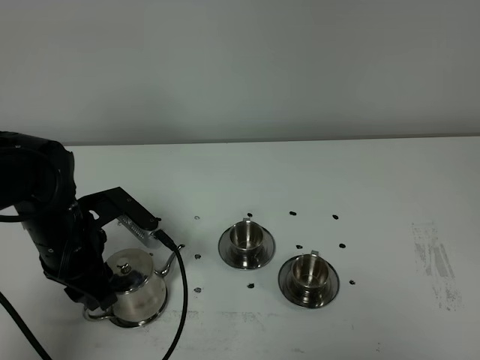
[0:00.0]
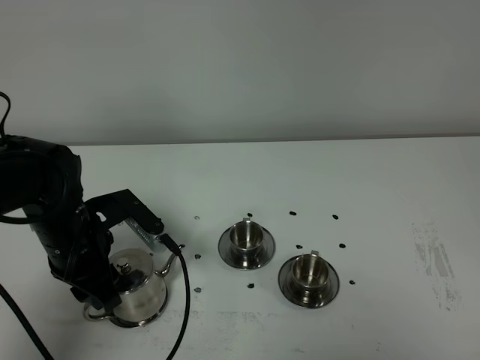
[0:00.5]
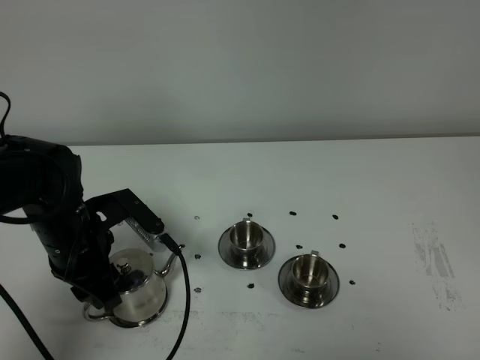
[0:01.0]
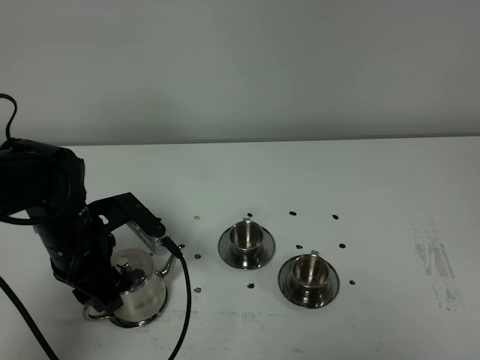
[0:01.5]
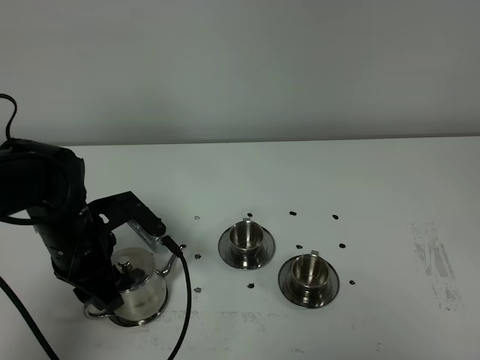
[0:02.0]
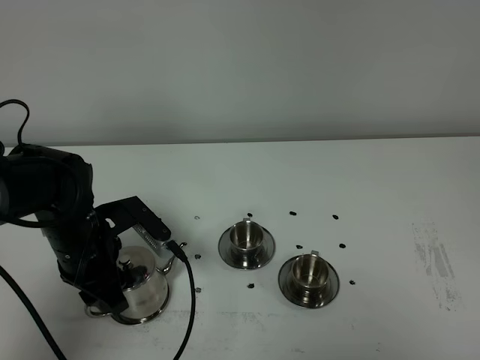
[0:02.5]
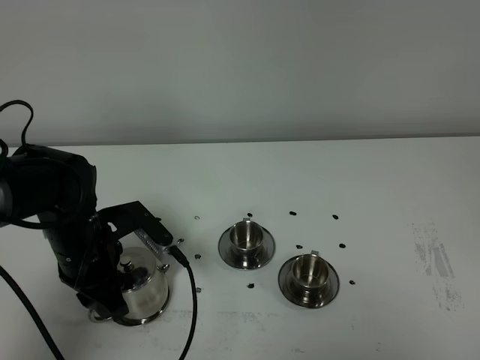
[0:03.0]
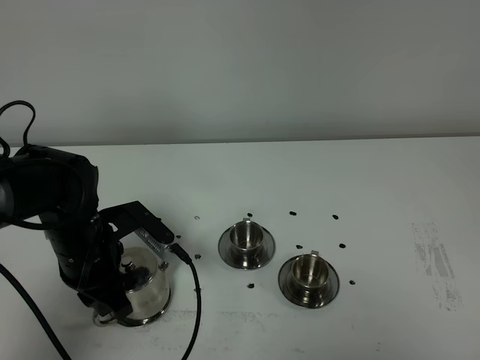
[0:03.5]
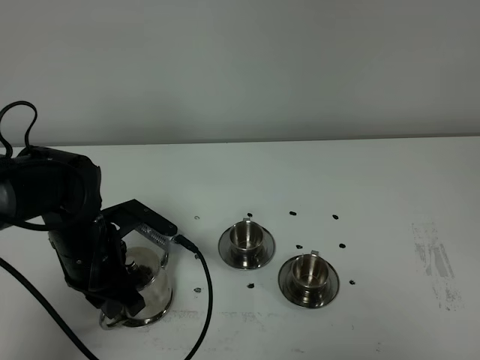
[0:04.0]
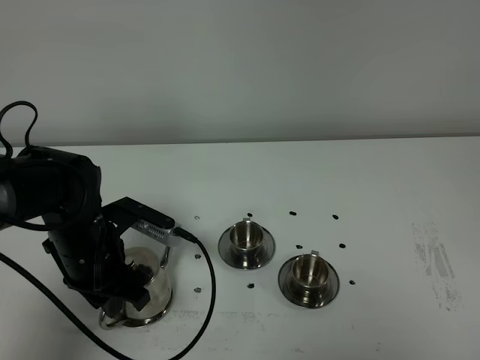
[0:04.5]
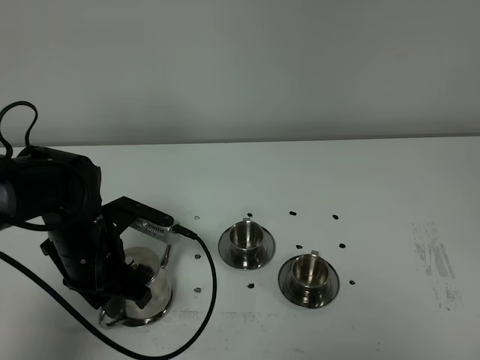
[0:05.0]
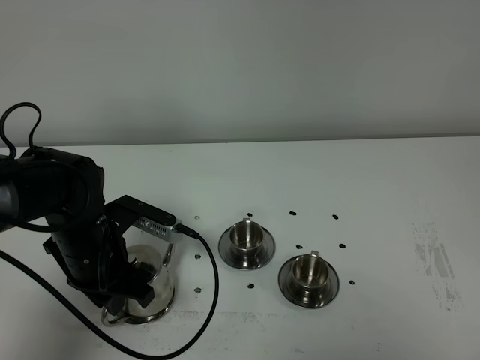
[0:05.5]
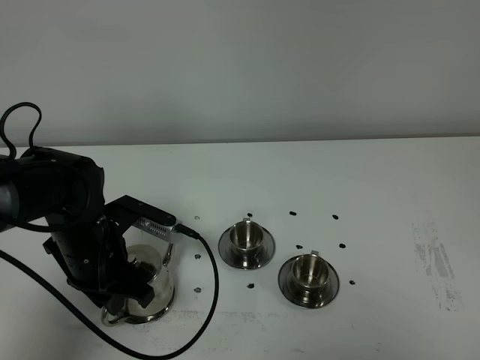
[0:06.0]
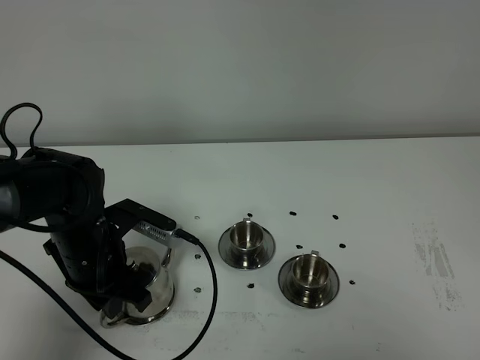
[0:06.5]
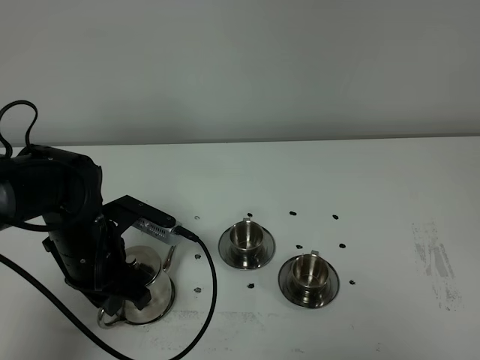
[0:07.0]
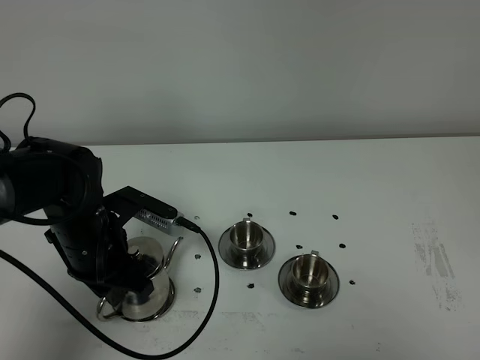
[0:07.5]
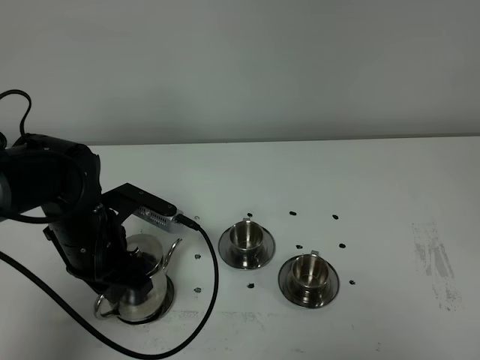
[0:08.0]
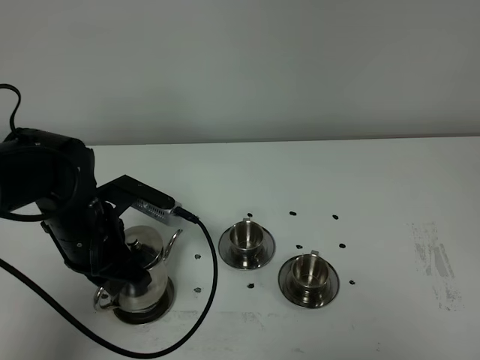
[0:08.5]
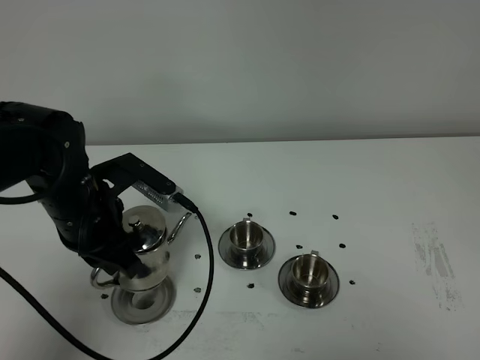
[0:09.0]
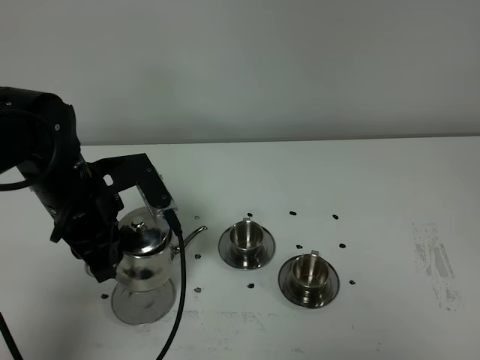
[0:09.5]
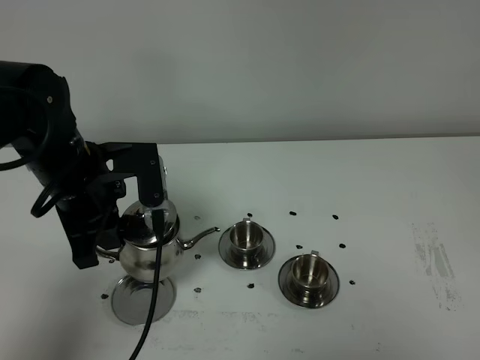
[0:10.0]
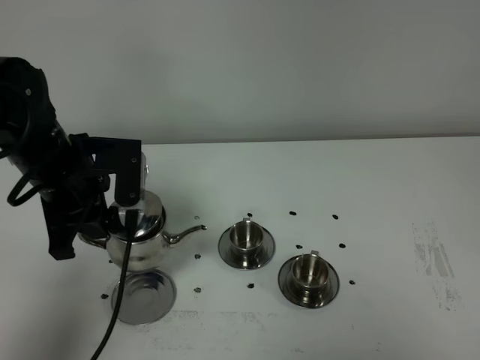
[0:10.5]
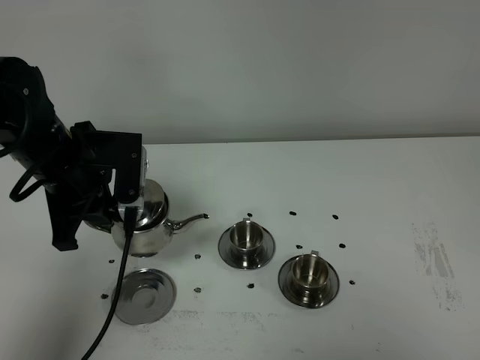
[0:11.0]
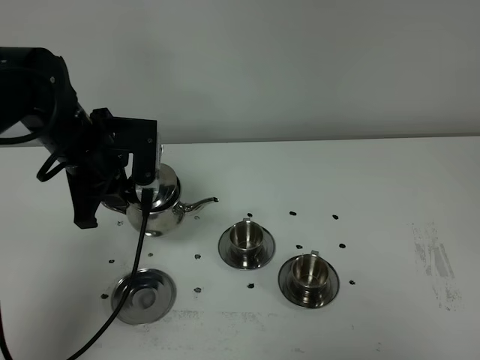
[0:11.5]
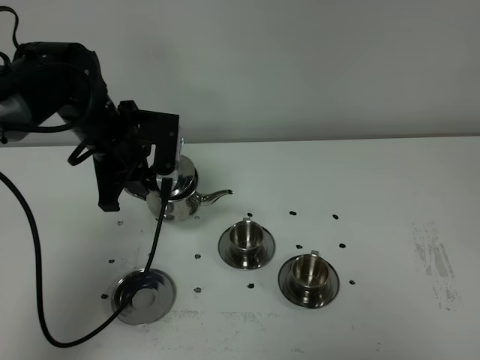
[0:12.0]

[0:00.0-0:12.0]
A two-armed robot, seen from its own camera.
Task of the whole recording: grasp the stainless steel teapot and pour the tea into the two stainless steel teacups one by one, put the stainless steel teapot back in its original place.
Step, 0.0 to 9.0 s: Pick up the teapot with the left gripper.
0.0 to 2.0 s: The grippers move only a little.
2.0 to 4.0 s: The left gripper closes.
4.0 to 8.0 s: The grippers stay close to where they were, moving slightly.
8.0 to 10.0 s: The left gripper travels upward by some 10 cm.
10.0 to 12.0 s: The left gripper goes some 10 cm forward.

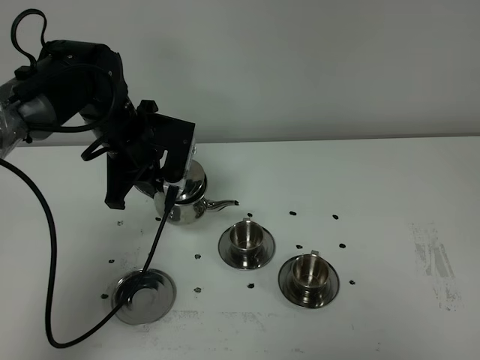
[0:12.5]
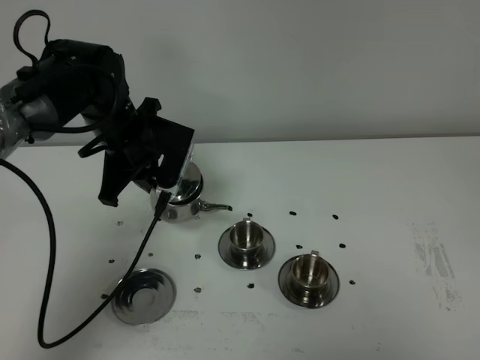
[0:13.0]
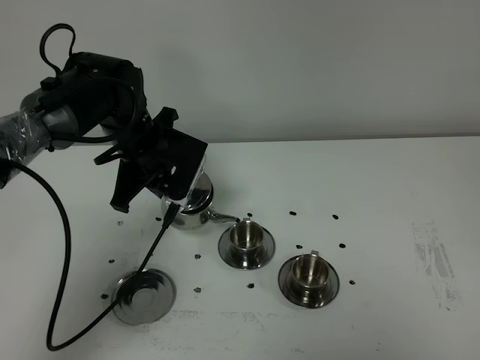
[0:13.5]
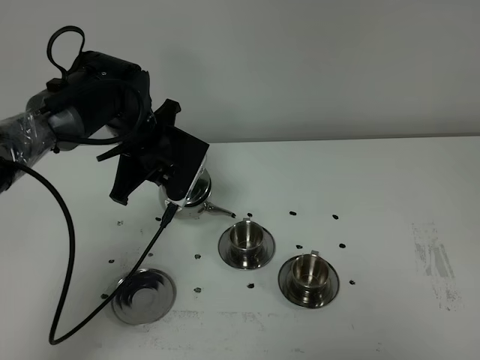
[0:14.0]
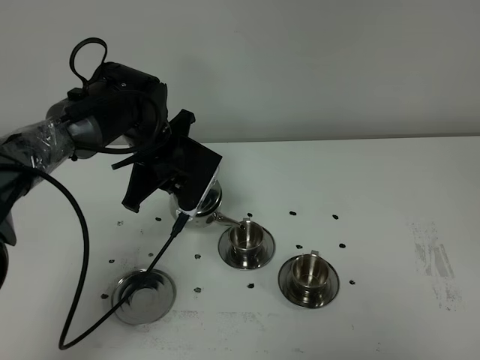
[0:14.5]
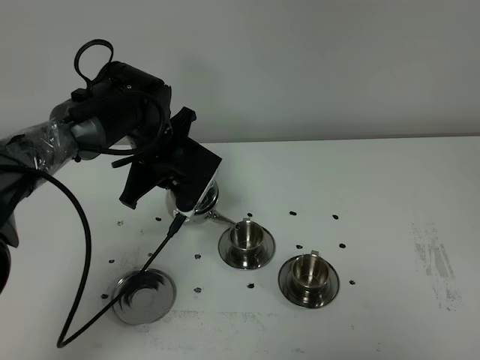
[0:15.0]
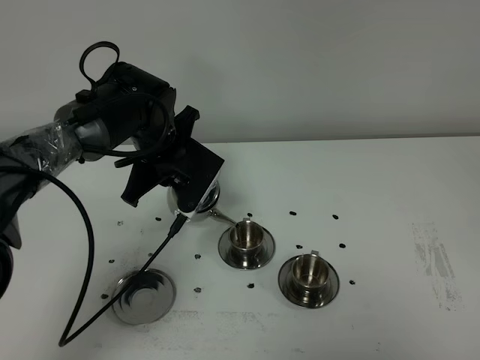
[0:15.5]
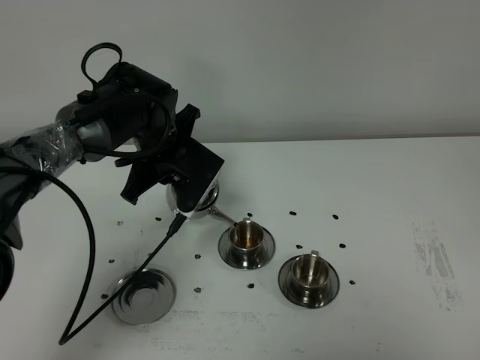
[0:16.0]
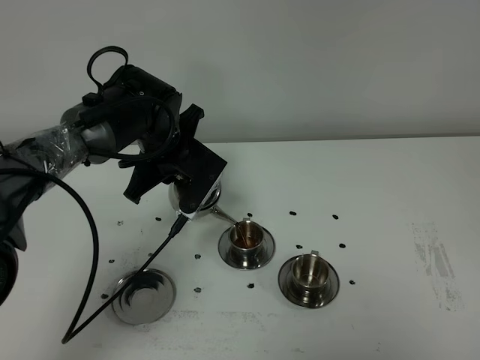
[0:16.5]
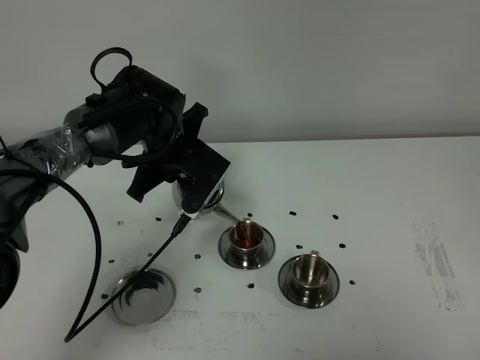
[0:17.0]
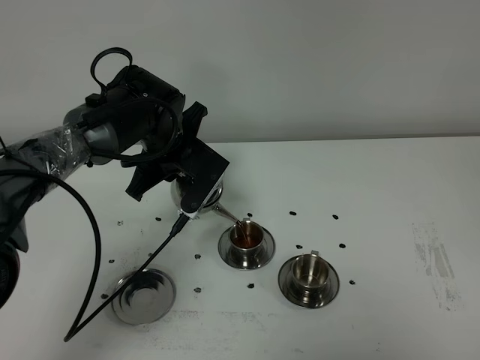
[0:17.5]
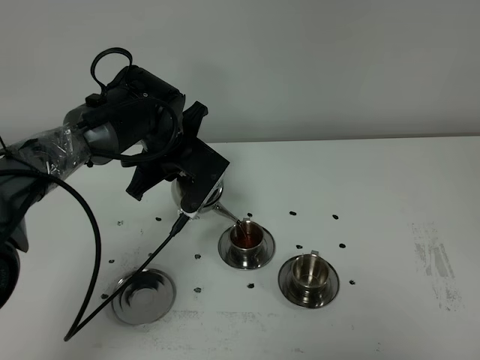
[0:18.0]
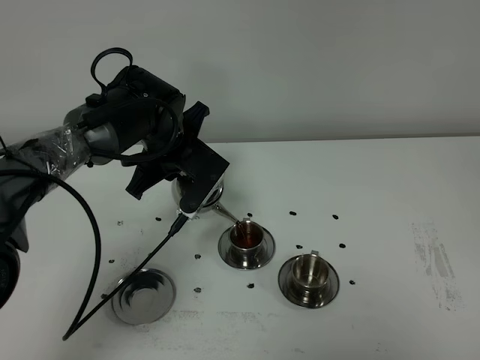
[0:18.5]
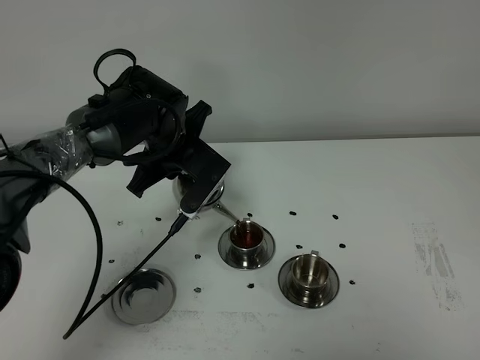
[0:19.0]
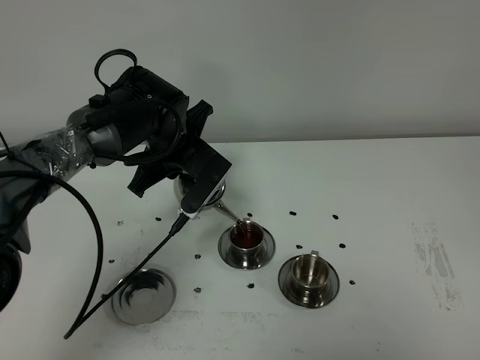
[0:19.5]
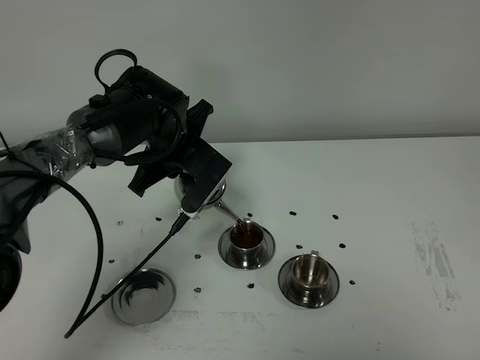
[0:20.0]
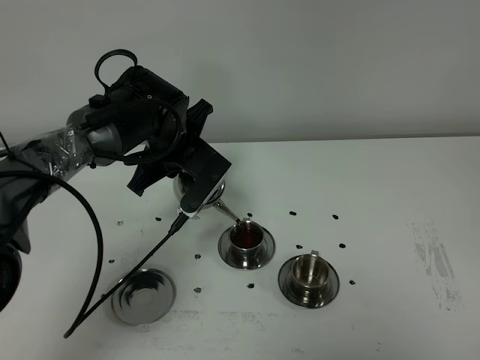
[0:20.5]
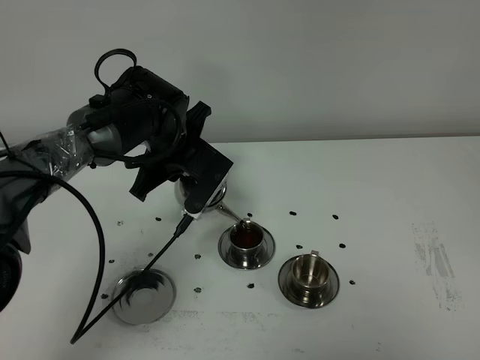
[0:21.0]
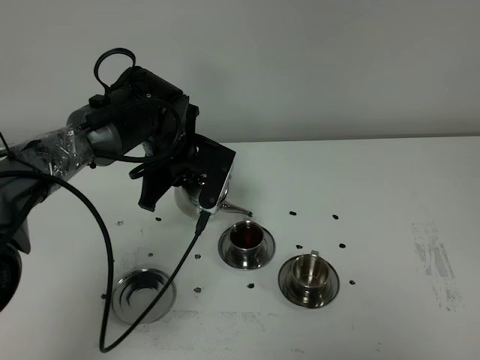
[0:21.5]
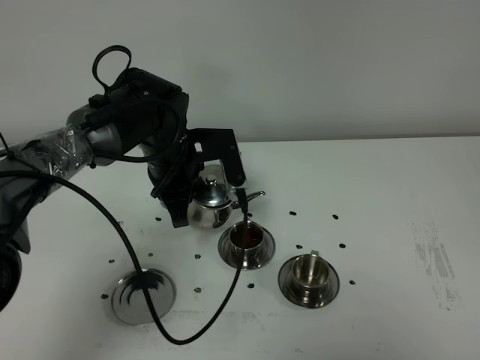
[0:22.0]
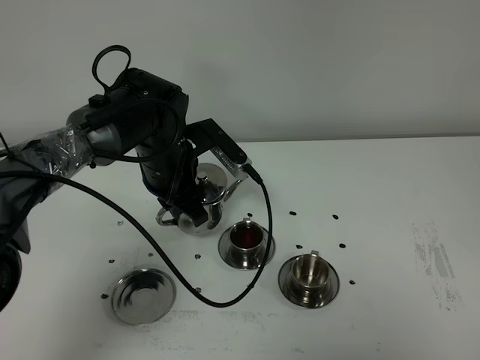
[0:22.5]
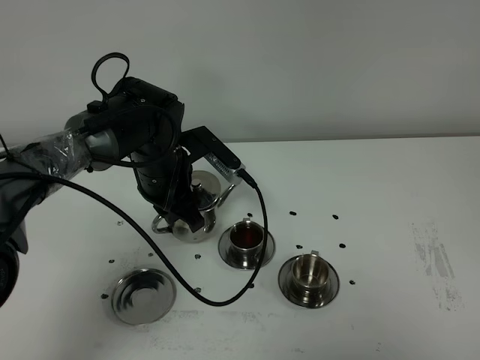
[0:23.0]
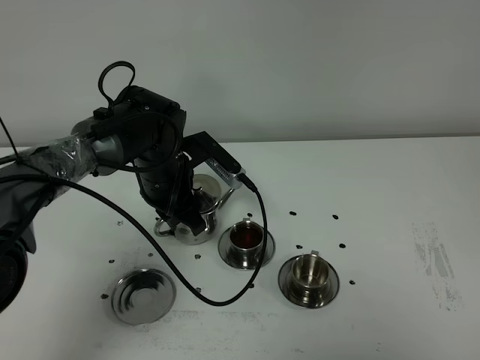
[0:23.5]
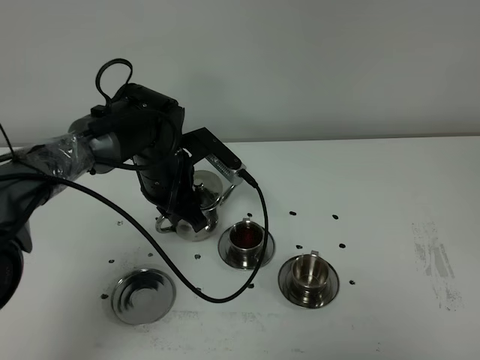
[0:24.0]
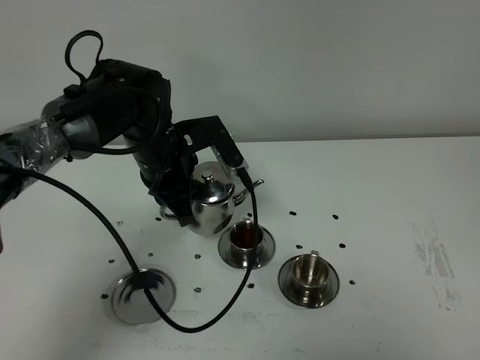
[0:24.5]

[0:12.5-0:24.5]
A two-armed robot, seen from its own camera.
Task of the whole recording: grasp the stainless steel teapot and pour the tea into the two stainless steel teacups one by one, put the stainless steel teapot back in its original place.
Step, 12.5 to 21.5 s: Pour tea into the teacup with the left gripper.
12.5 to 14.5 s: The grippers move only a little.
14.5 to 16.5 s: There are only small adjustments of the grippers.
16.5 to 18.5 s: Both grippers stay about where they are.
18.5 to 20.5 s: Both grippers stay put.
22.5 to 24.5 s: There are only small adjustments of the grippers.

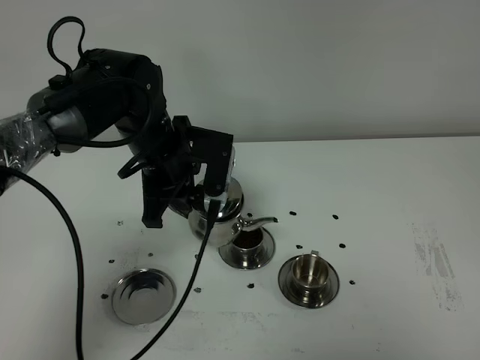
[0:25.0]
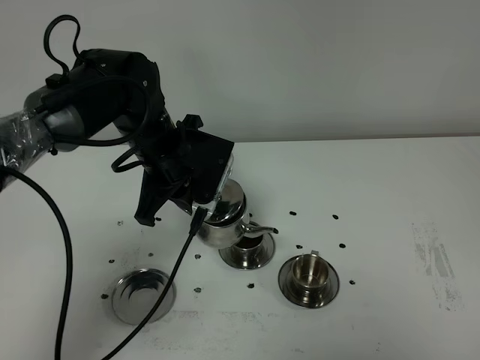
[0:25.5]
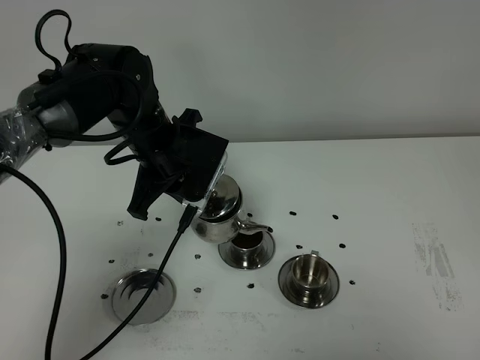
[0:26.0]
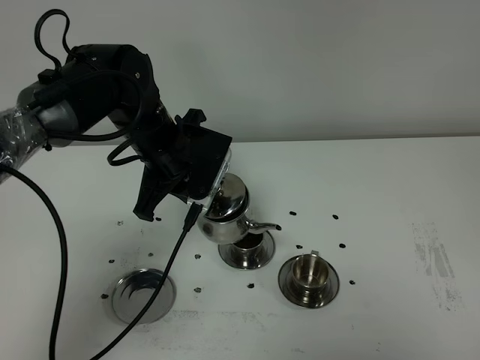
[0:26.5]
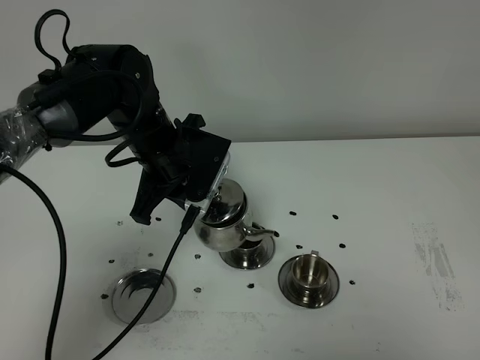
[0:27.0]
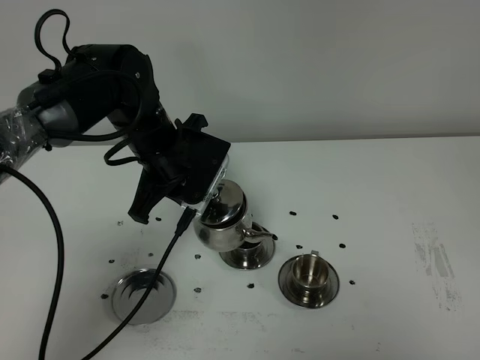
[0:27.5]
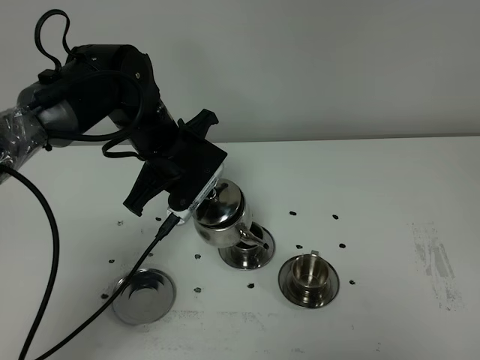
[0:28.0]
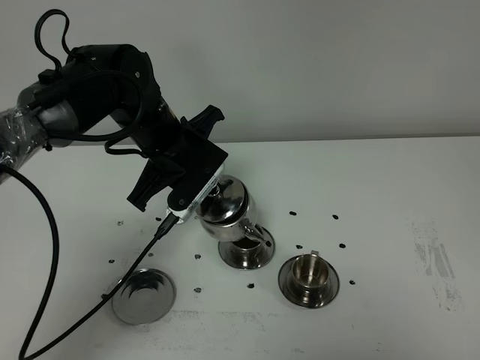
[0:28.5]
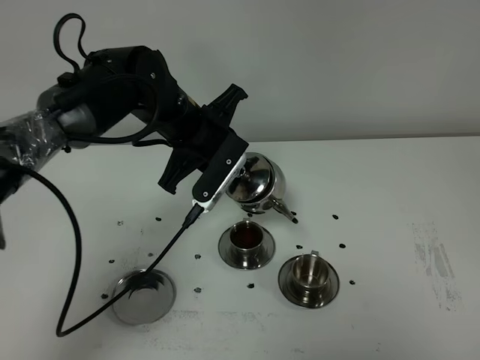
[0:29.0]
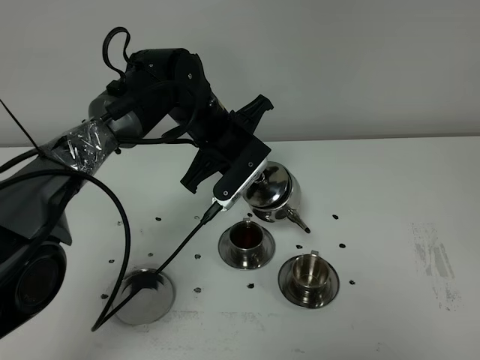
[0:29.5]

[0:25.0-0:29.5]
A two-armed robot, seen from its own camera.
Task of the whole recording: grasp the stainless steel teapot and pour the tea into the two stainless steel teacups one by one, put the stainless steel teapot back in its original place.
25.0 to 27.0 s: The grippers make only small movements.
27.0 to 29.5 s: The left gripper heads to the right, covering about 5 cm.
